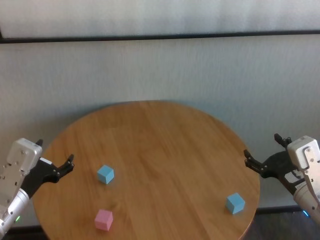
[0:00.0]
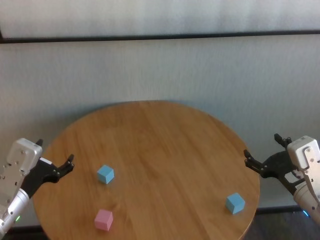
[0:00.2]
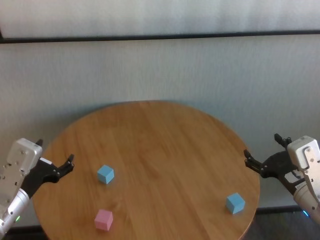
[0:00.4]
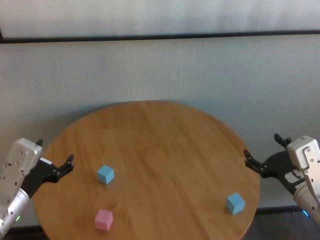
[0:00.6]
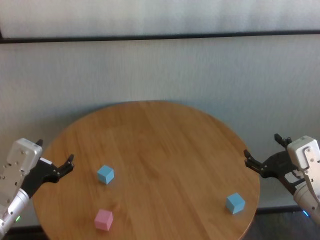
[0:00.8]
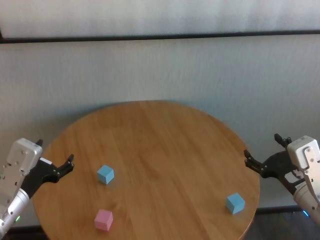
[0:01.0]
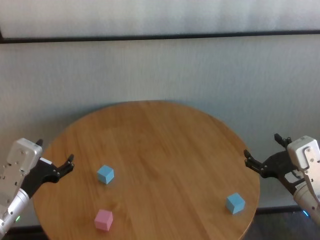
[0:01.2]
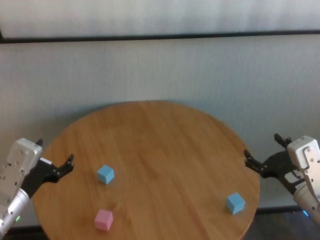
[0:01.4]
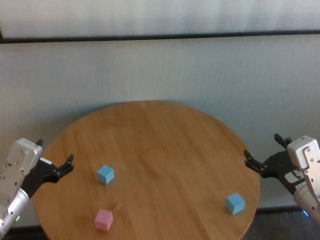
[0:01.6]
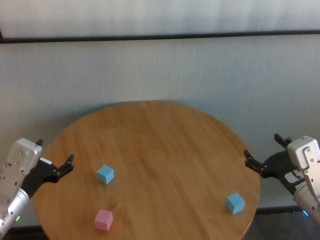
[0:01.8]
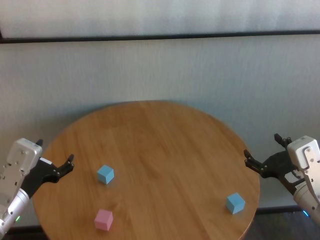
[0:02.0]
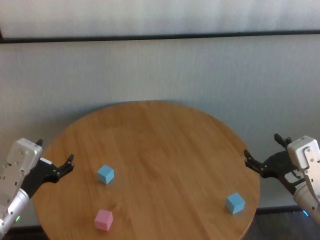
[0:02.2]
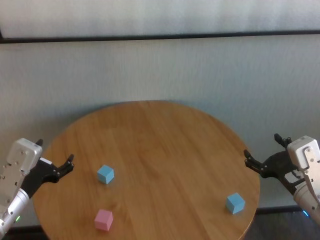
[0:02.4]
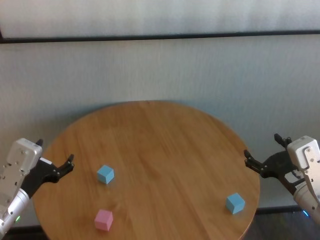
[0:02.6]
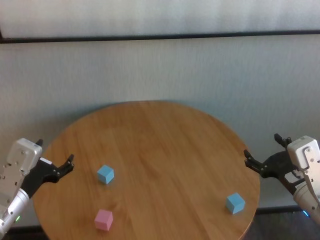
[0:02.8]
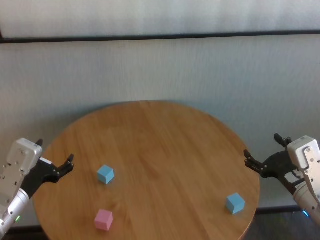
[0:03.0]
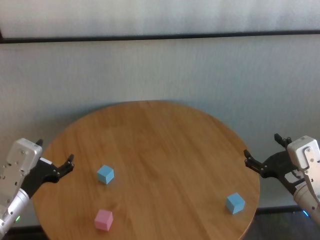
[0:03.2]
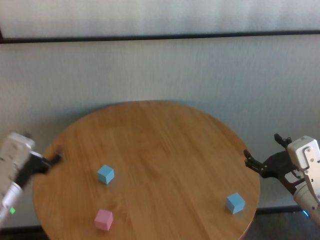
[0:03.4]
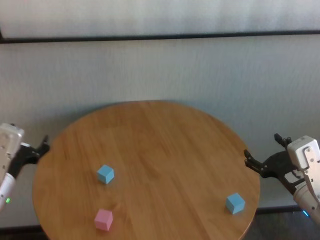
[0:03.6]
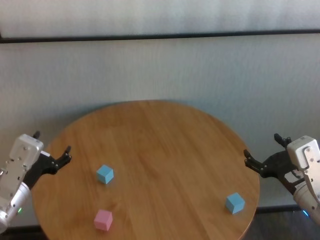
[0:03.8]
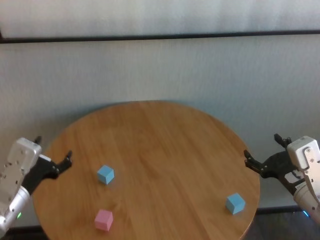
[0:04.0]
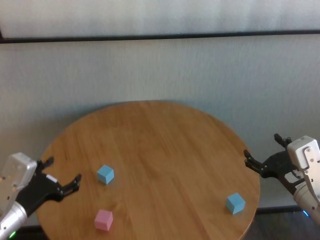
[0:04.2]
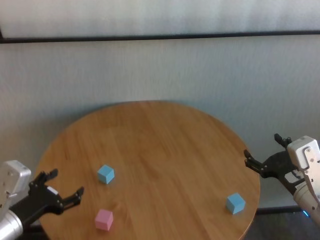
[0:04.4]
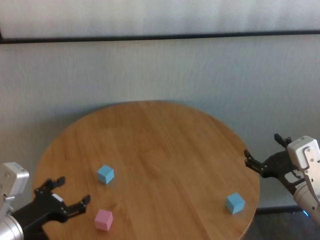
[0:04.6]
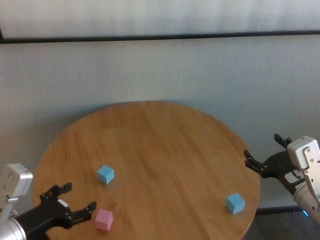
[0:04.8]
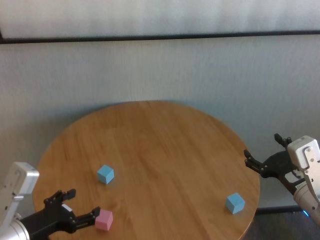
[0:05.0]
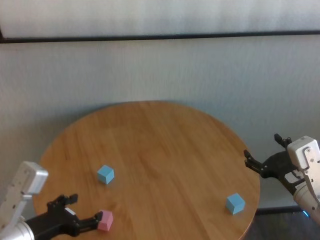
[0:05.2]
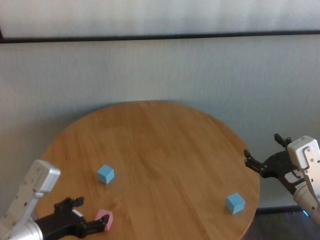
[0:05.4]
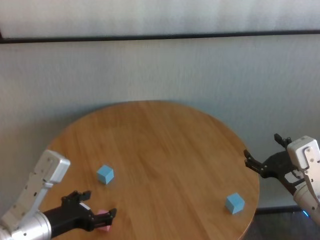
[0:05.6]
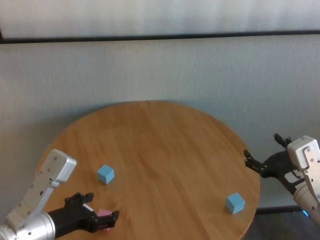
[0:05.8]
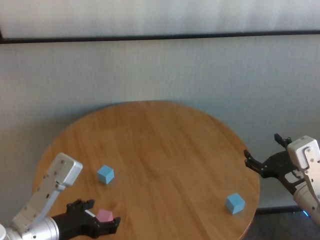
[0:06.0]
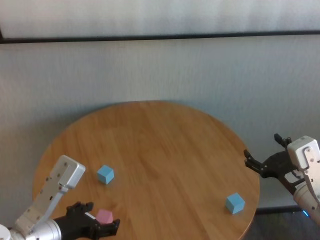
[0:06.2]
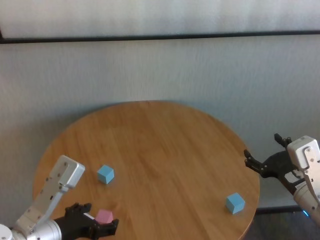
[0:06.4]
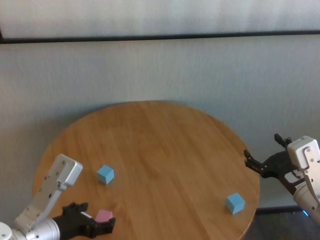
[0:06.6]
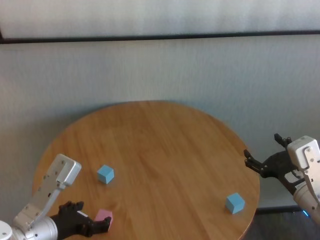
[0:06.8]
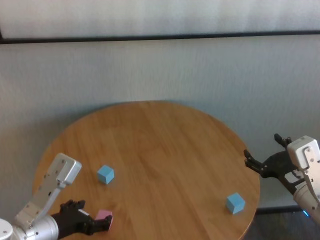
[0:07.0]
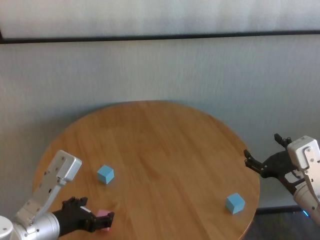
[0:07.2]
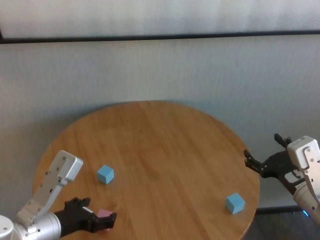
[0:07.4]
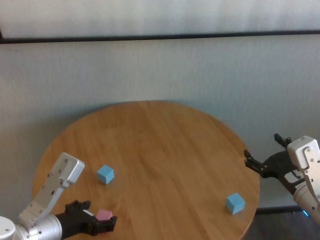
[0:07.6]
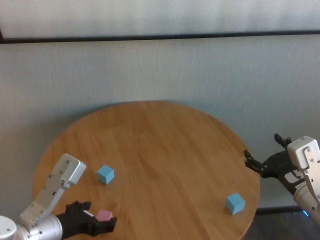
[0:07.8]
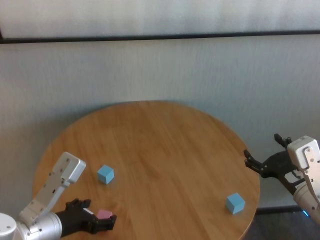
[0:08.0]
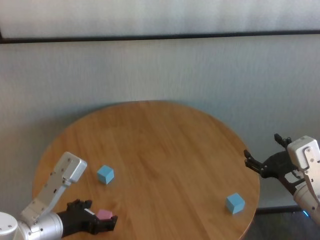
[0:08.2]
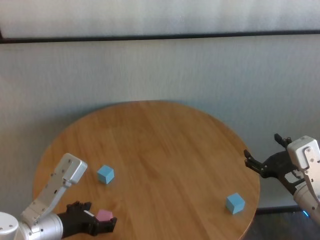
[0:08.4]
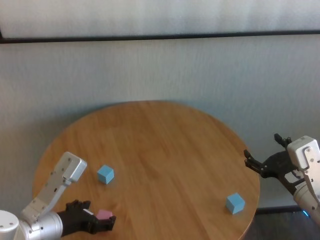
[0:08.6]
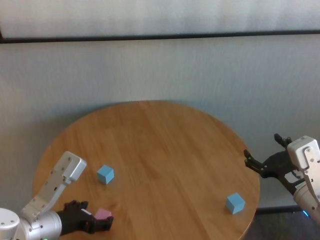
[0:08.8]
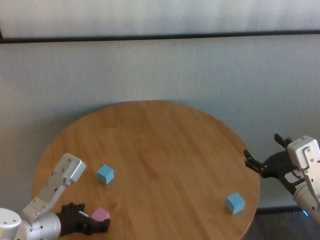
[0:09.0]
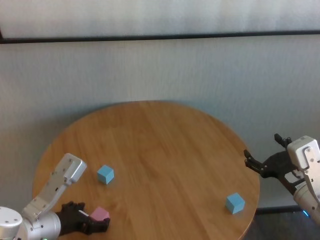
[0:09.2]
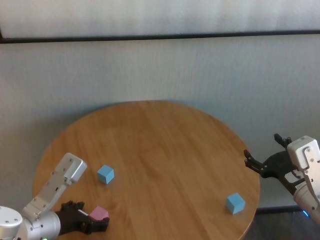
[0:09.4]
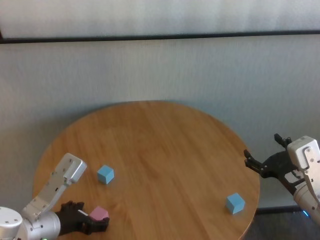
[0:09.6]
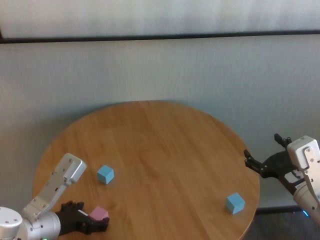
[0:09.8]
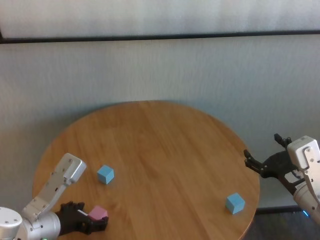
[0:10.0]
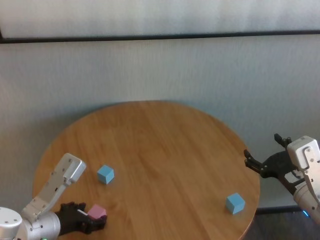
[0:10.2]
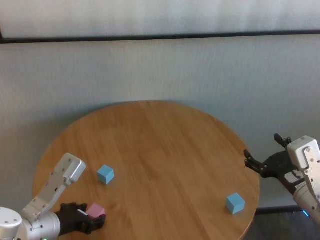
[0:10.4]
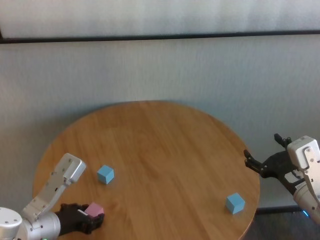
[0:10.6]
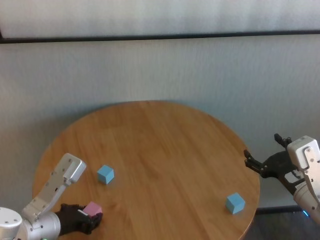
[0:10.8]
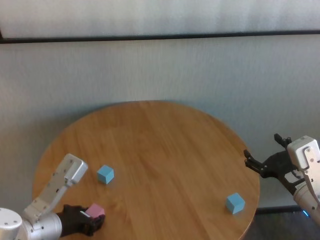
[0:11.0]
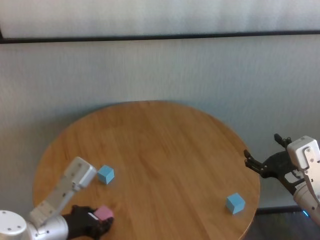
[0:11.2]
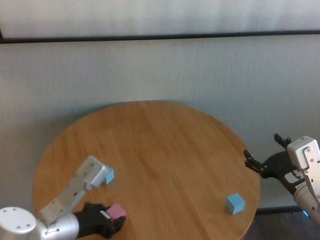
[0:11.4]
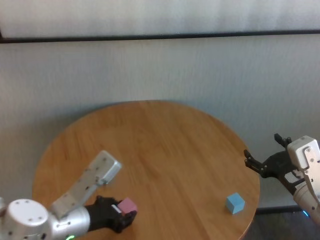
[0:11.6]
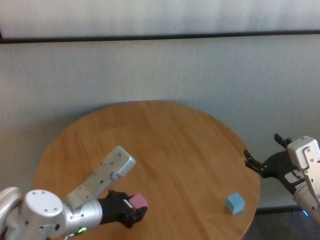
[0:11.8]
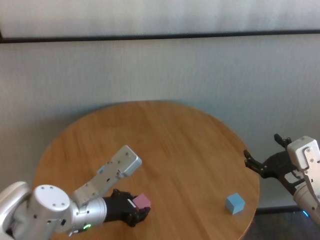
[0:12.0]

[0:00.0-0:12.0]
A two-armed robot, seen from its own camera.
Task of the whole recording: stack building blocks on the table.
Step, 0:00.0 to 0:10.8: Grasp the pink building block with left gripper.

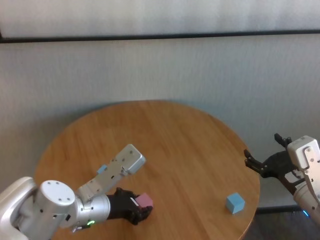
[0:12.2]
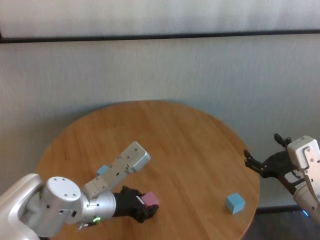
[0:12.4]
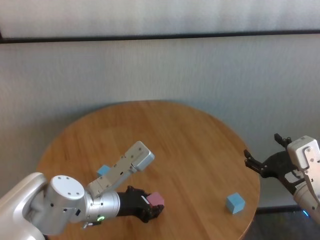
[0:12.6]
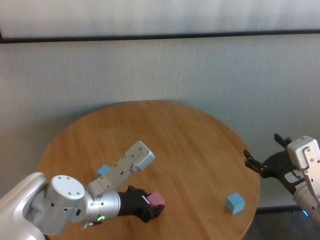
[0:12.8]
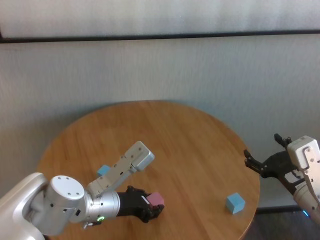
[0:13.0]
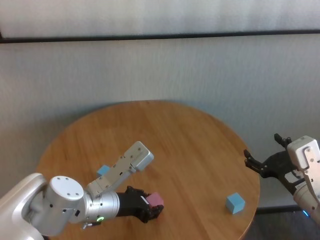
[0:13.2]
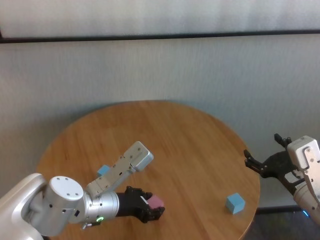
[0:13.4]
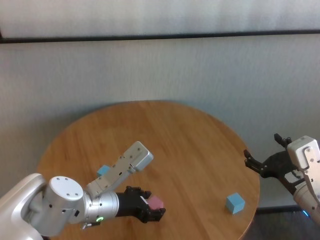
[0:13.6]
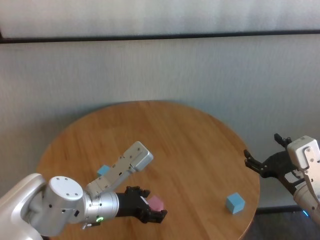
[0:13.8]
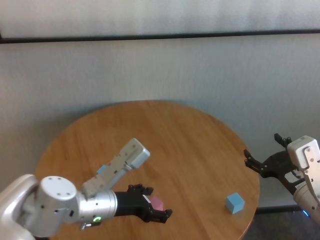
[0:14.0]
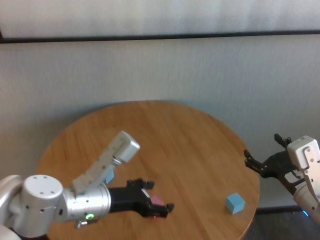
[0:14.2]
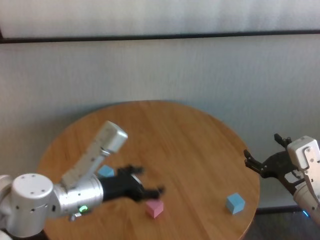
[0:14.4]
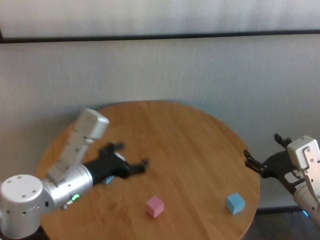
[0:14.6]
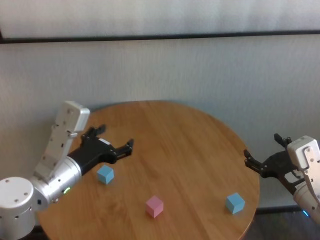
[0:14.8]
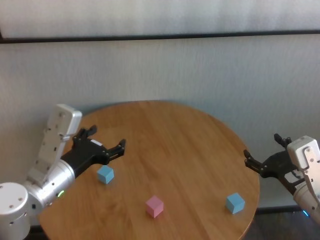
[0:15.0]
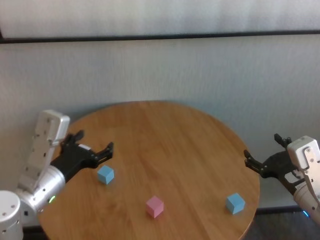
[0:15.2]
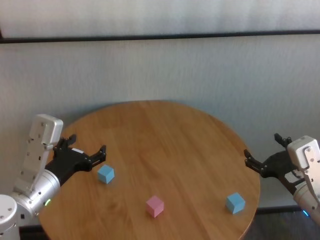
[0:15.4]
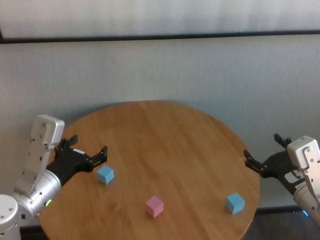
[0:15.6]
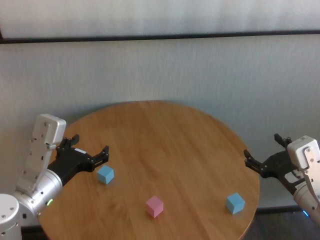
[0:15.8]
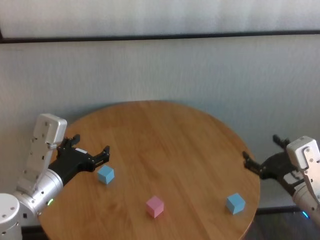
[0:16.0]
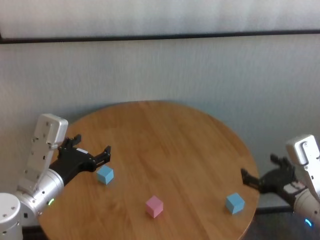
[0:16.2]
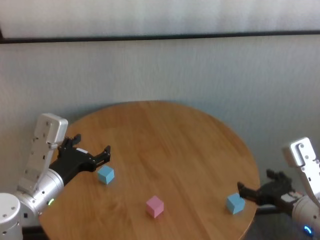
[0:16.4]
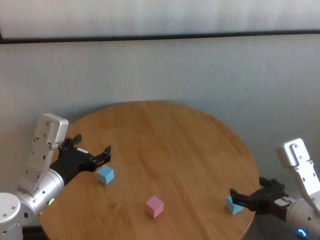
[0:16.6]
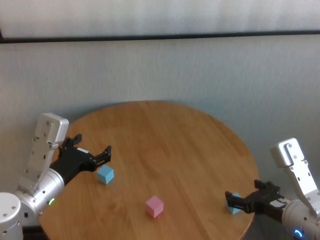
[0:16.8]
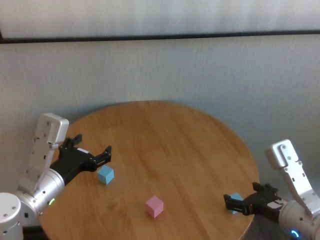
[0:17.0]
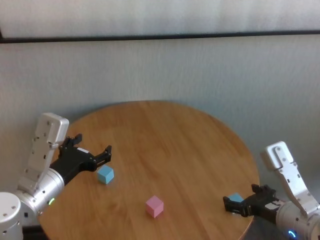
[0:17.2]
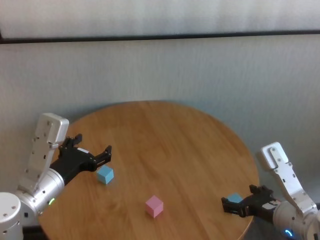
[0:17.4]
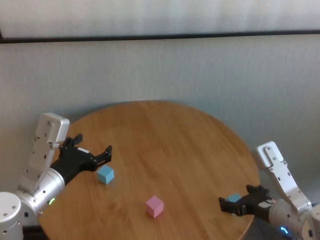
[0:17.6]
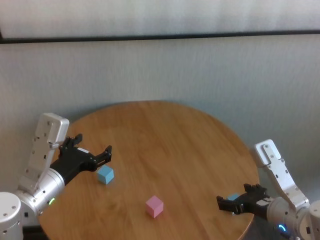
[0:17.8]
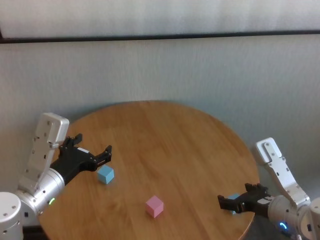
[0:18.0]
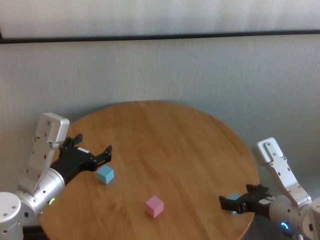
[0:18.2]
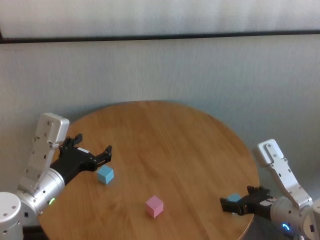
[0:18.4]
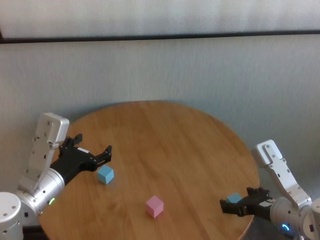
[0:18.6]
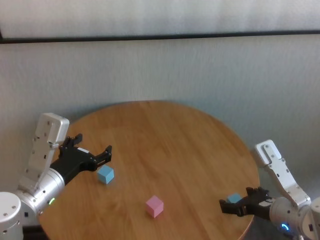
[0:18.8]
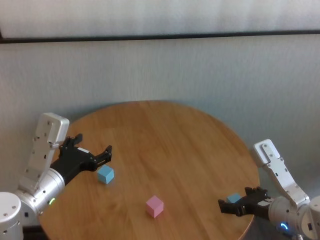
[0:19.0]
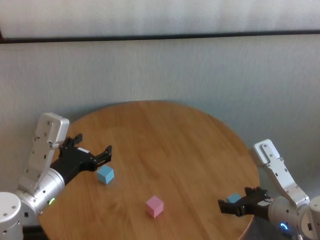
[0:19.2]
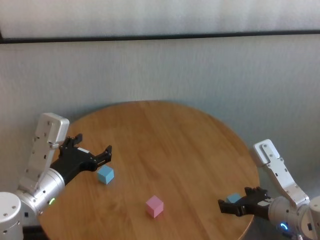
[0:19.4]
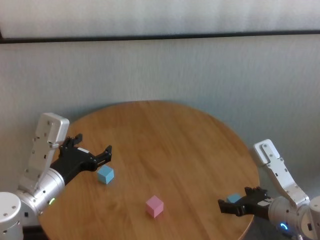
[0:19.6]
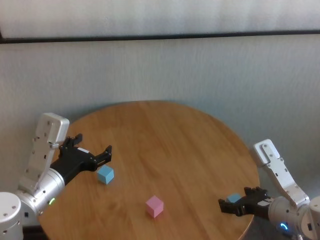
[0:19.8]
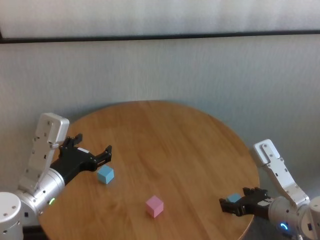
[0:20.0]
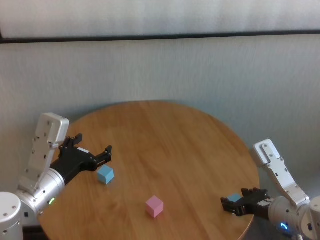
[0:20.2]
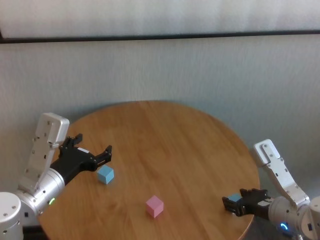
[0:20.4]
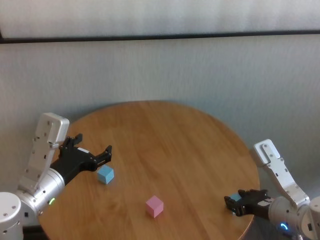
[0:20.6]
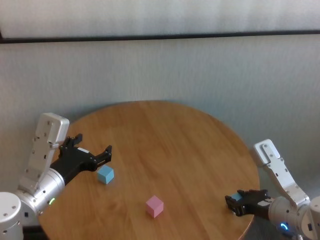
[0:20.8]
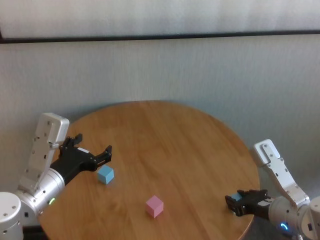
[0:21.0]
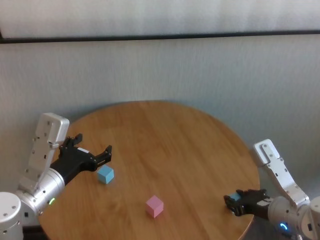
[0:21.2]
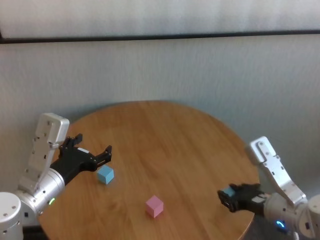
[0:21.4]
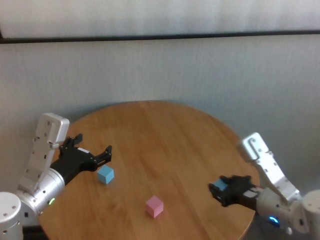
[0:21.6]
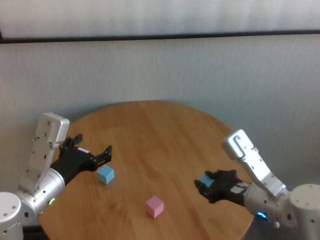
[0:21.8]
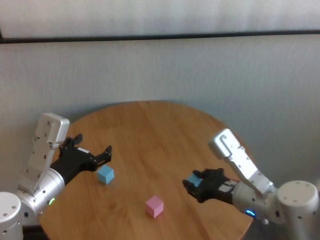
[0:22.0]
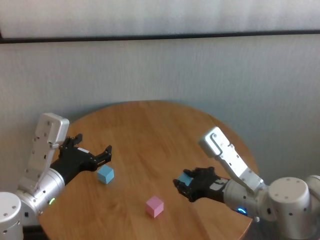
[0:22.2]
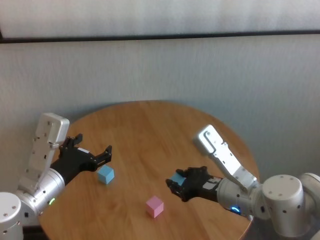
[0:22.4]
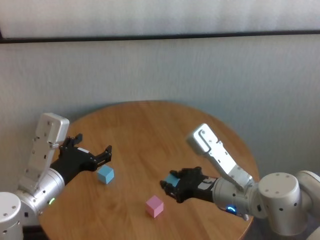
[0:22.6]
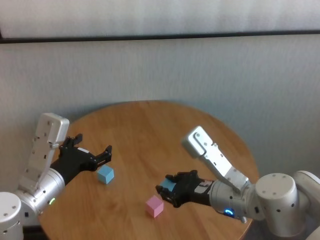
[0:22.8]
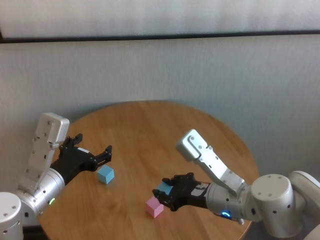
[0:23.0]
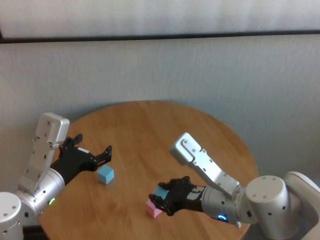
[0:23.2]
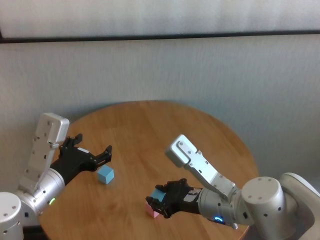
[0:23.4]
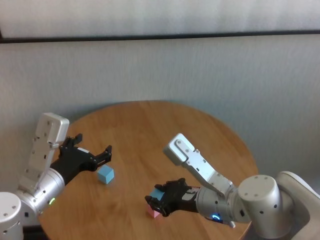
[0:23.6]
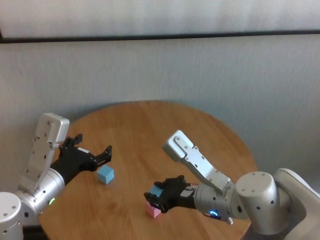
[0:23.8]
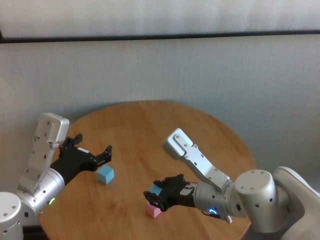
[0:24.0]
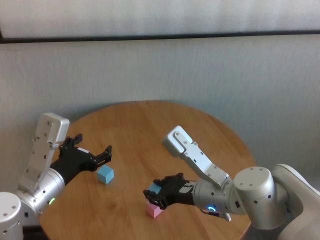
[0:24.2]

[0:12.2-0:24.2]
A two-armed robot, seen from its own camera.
Task of the whole recording: stack building blocks on the table.
Step, 0:12.2 to 0:13.8: Place the pink building block in the center of table with left gripper.
Step, 0:14.0 to 0:21.0: Grasp the blue building block with right gripper.
